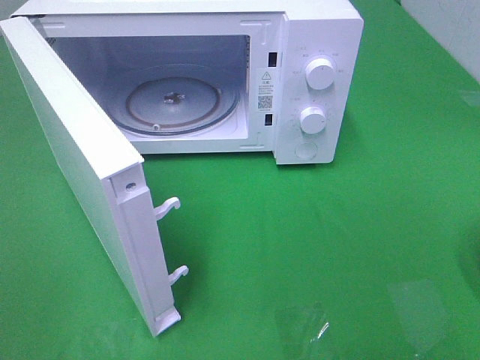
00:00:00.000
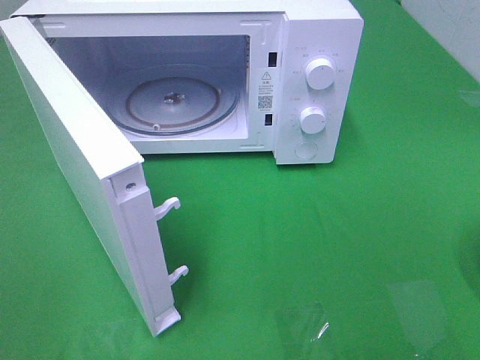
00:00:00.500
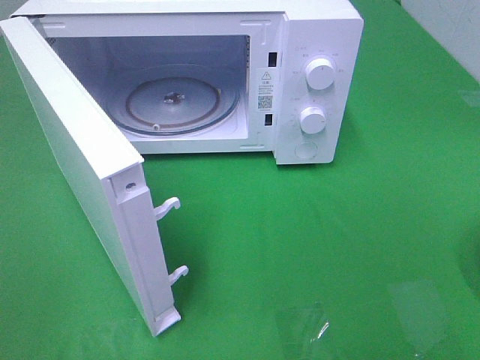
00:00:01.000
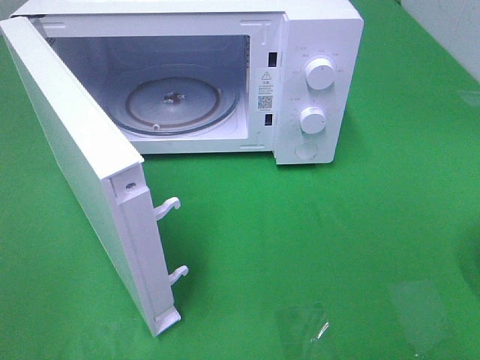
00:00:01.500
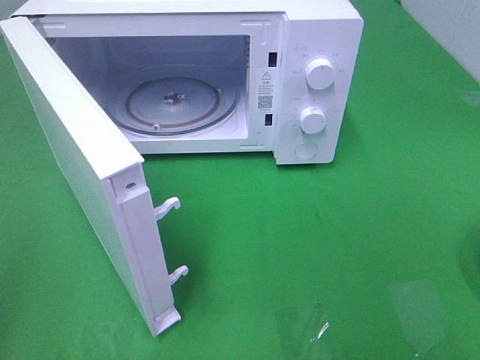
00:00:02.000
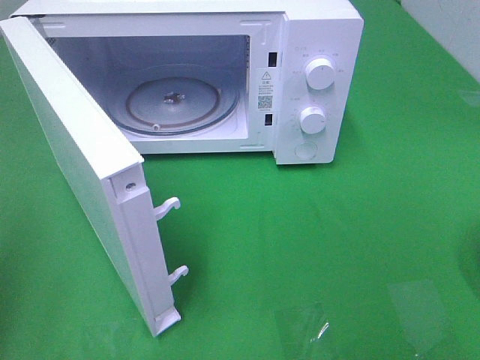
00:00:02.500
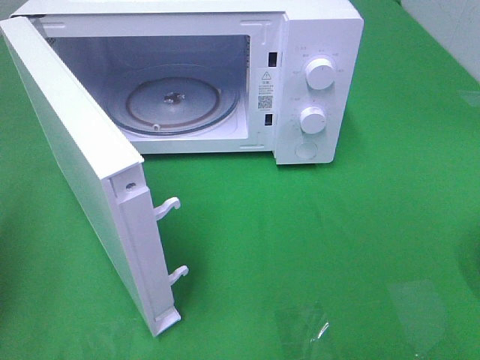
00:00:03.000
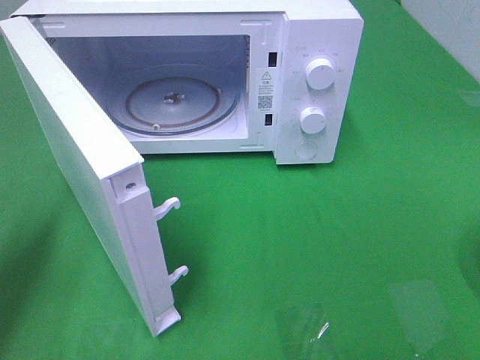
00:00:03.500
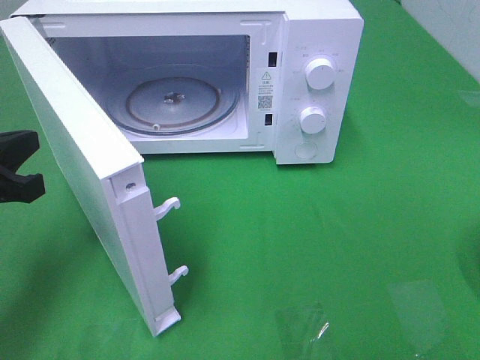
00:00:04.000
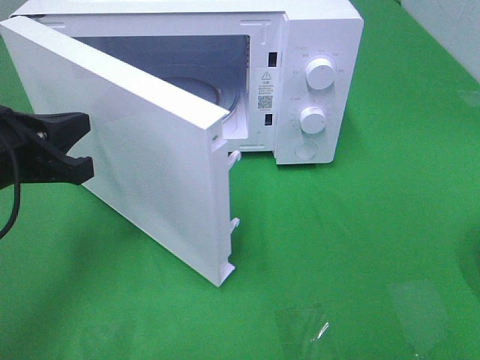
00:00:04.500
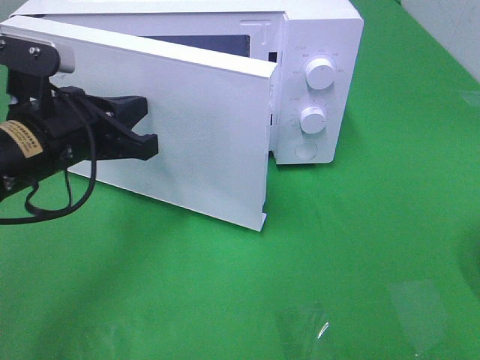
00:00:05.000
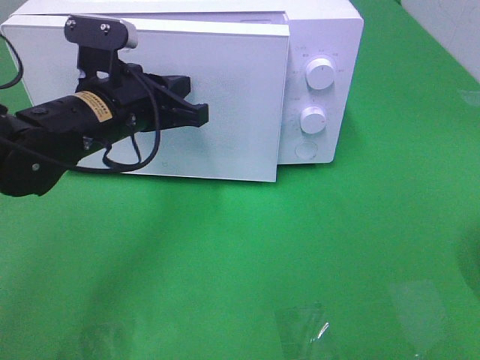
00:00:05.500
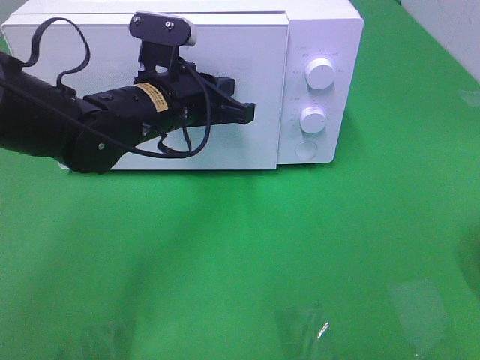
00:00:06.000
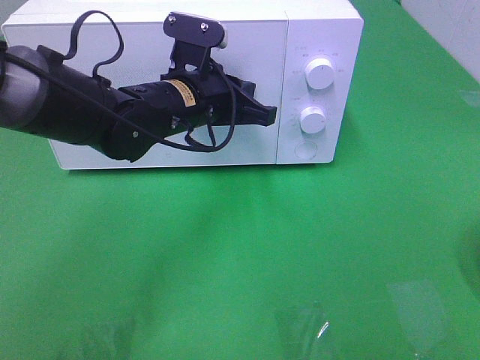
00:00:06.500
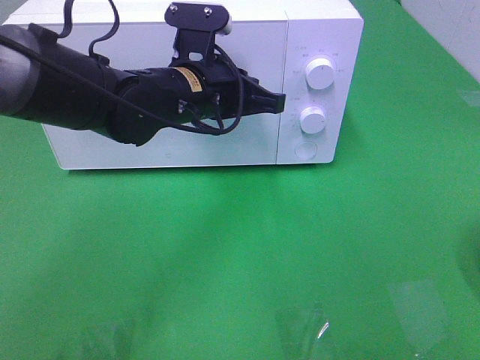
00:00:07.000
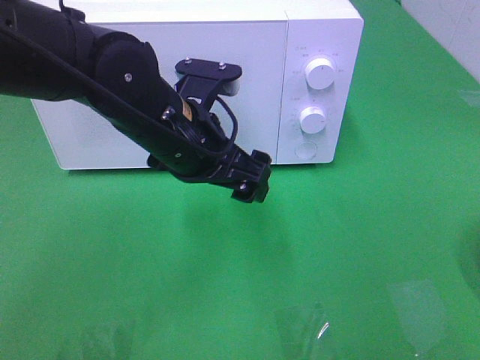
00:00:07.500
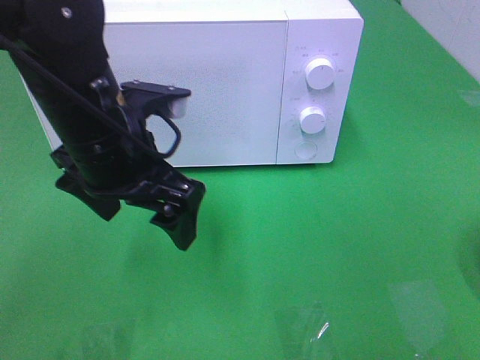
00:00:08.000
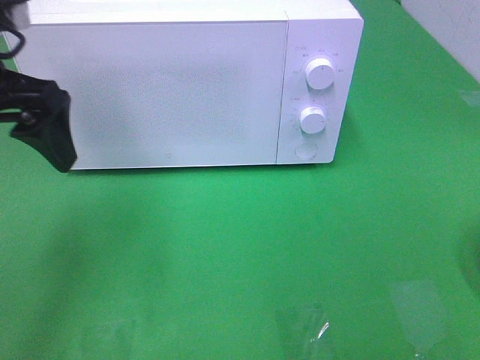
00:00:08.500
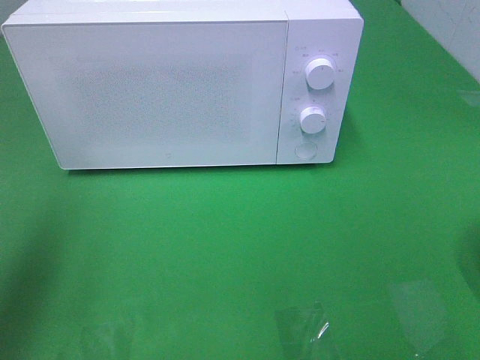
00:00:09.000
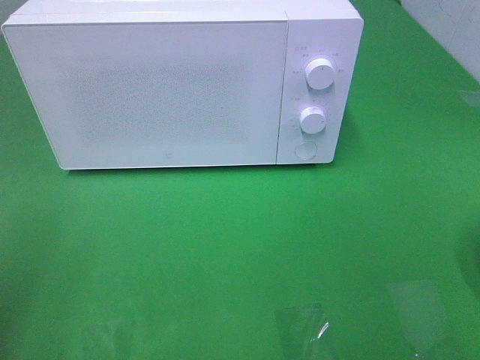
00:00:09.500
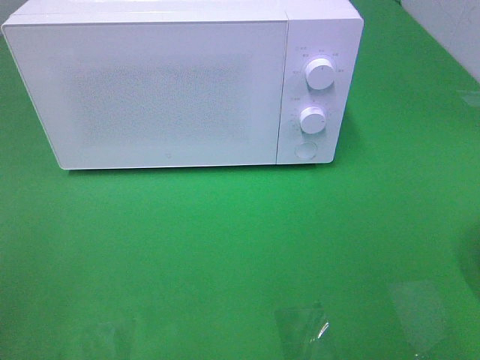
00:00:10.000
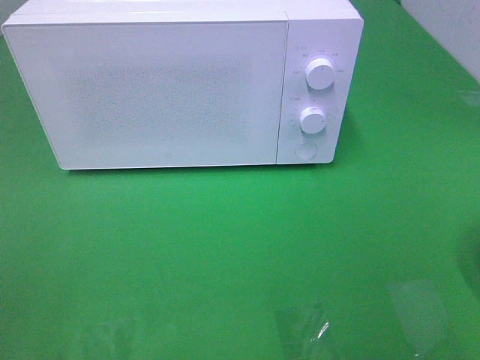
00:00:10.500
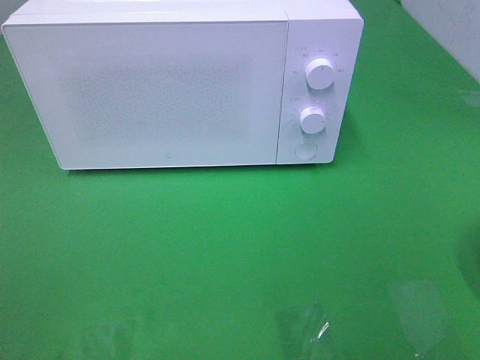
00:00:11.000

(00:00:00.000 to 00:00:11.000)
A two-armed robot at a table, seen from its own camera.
Task of the whole recording: Heat the burger.
Step, 00:00:00.000 - 00:00:06.500: Left hand: close the microwave door.
00:00:02.000 - 00:00:03.500: The left gripper heads forward and downward, covering about 20 cm.
00:00:03.500 - 00:00:05.500: The left gripper travels to the right and forward by roughly 20 cm.
00:00:05.500 - 00:00:07.500: The left gripper heads to the right, covering approximately 5 cm, and opens up.
00:00:07.500 - 00:00:09.000: The left gripper shifts approximately 25 cm to the left and upward.
00:00:09.000 - 00:00:11.000: The left gripper travels backward by approximately 20 cm.

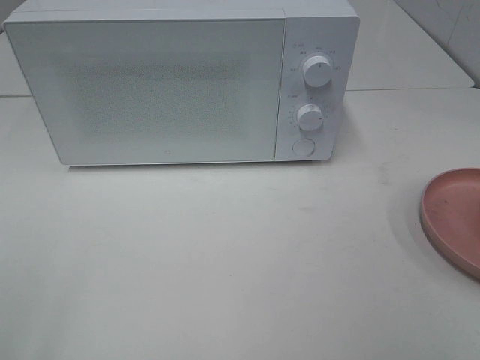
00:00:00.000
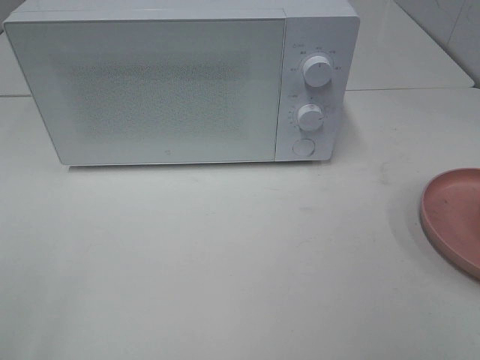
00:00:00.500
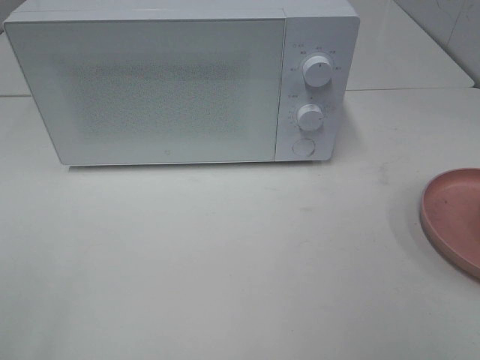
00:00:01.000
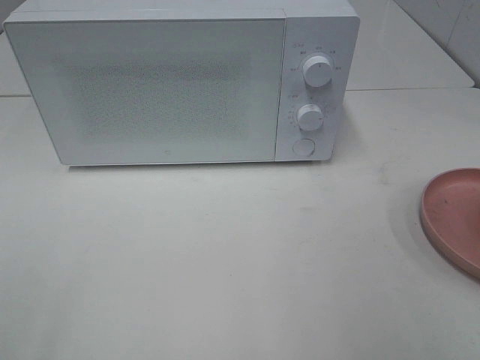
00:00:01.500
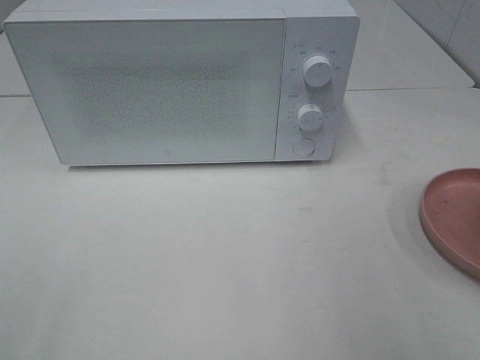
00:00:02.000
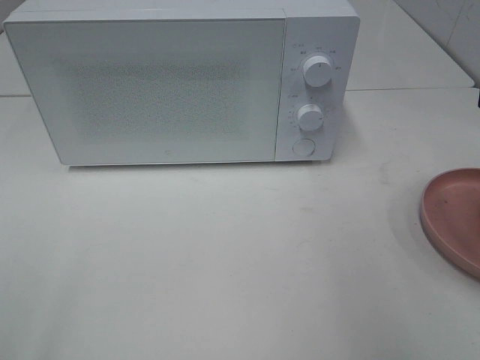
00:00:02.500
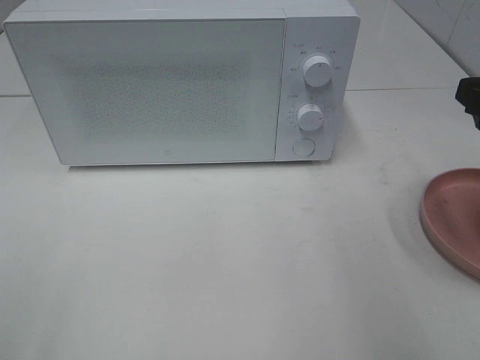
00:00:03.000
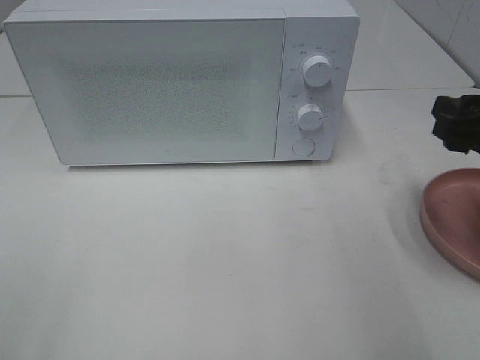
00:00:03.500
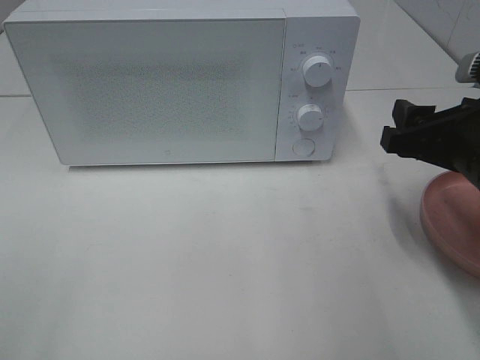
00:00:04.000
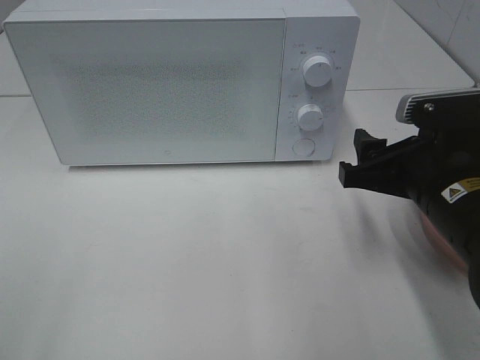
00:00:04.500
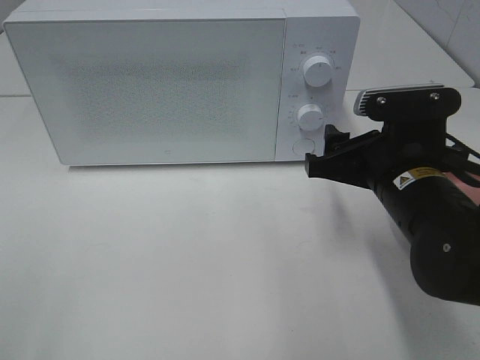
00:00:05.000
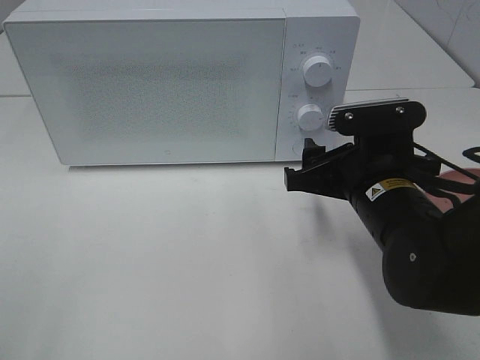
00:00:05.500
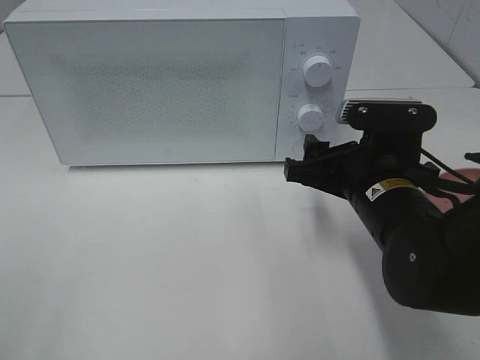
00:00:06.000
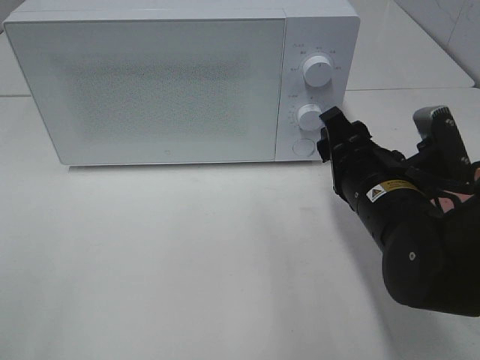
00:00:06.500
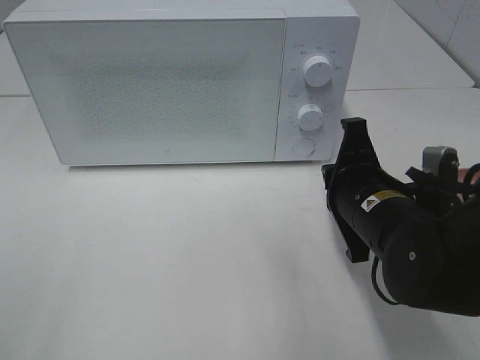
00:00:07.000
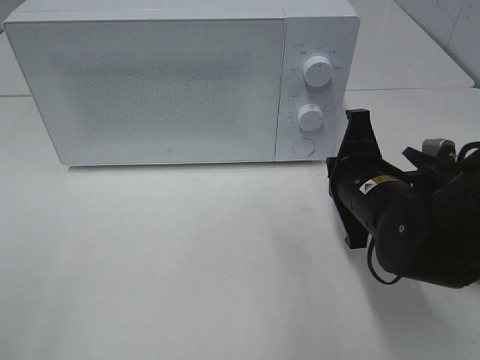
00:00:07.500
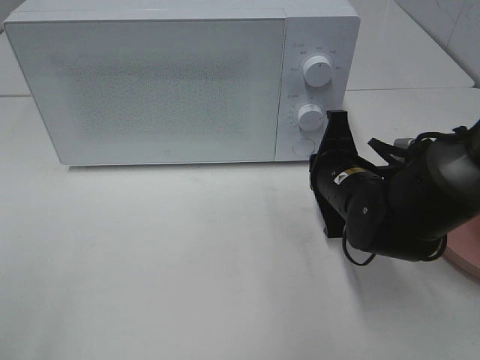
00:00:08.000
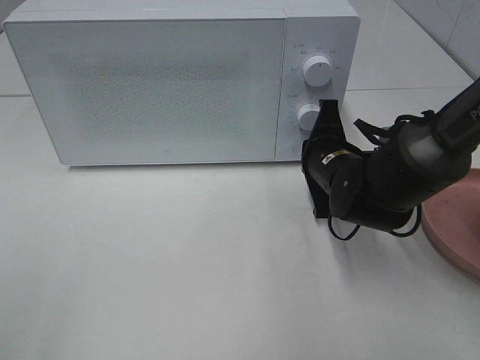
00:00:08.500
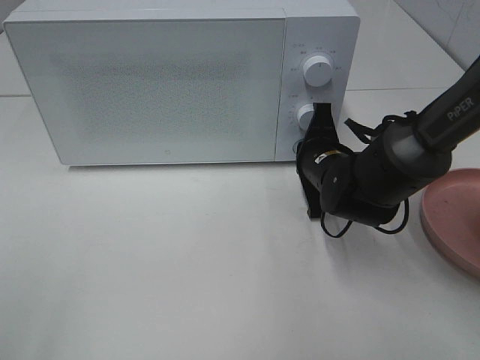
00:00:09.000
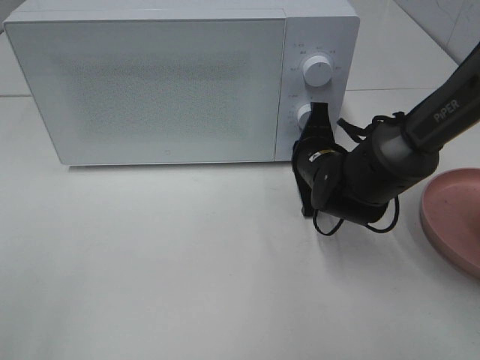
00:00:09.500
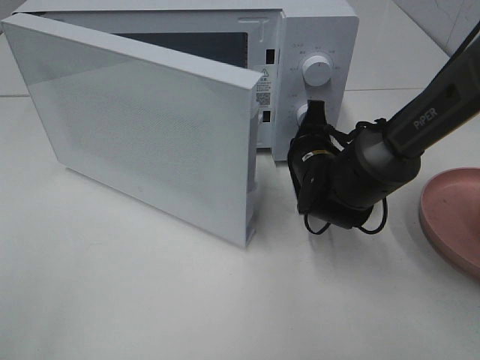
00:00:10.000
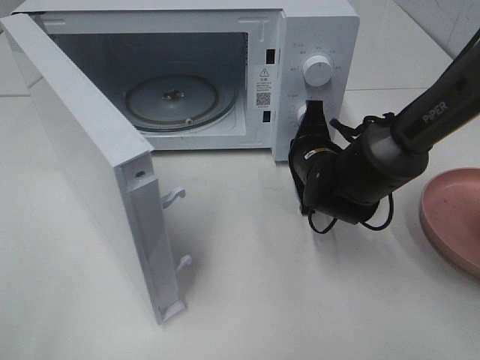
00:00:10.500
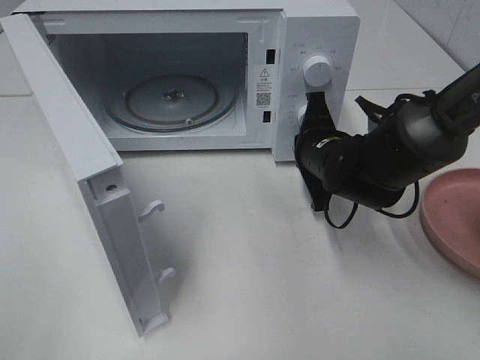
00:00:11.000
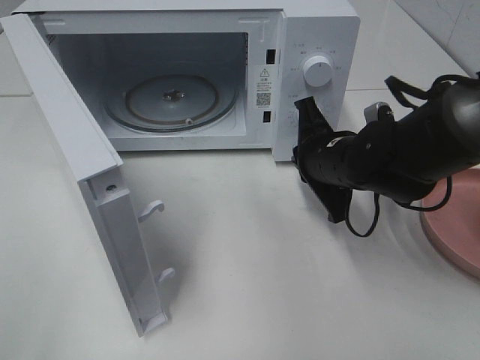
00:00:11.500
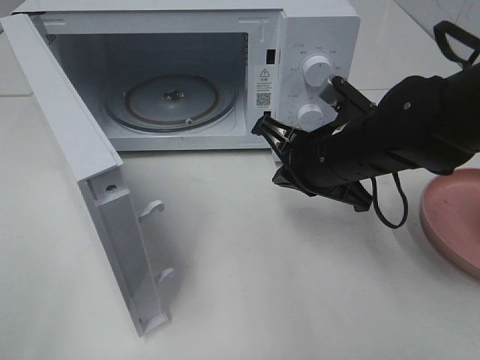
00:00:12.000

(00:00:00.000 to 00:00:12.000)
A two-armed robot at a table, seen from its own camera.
Task of the whole recording: Heat the burger.
Step, 00:00:00.000 - 00:00:11.000: Right hand: press the switch.
00:00:02.000 - 00:00:04.000: The right gripper goes some 15 cm downward, forward and to the left.
00:00:04.000 - 00:00:06.000: The right gripper goes roughly 10 cm to the left and downward.
00:00:06.000 - 00:00:08.000: The right gripper shifts approximately 5 cm forward, and closes up.
00:00:08.000 - 00:00:10.000: The right gripper goes about 5 cm forward.
00:00:10.000 - 00:00:12.000: The right gripper moves upward and backward, approximately 10 cm.

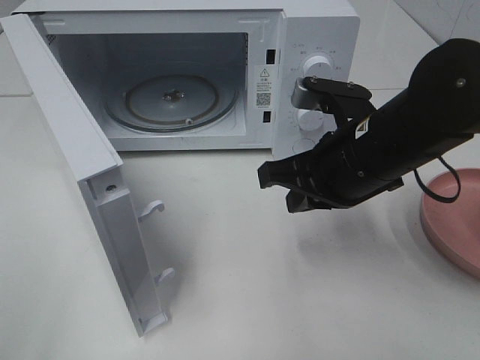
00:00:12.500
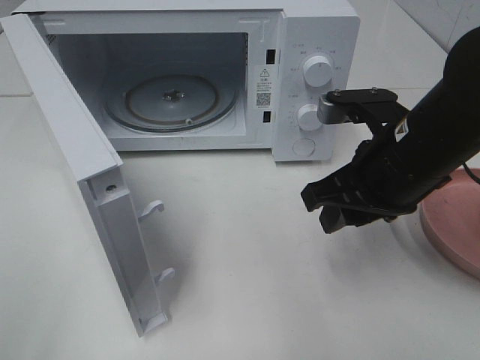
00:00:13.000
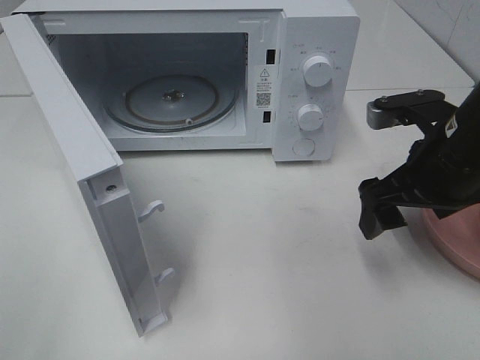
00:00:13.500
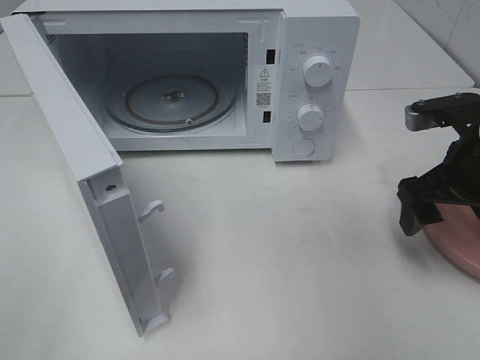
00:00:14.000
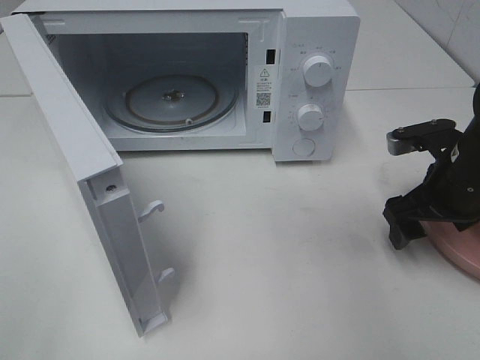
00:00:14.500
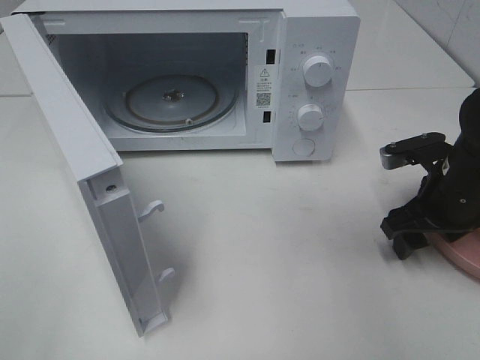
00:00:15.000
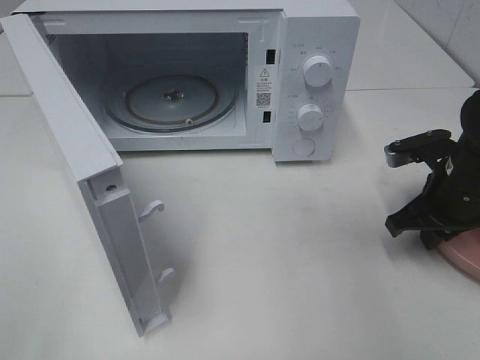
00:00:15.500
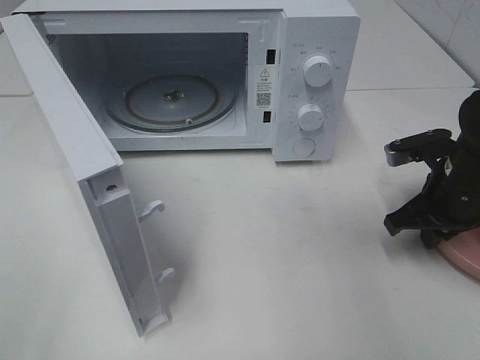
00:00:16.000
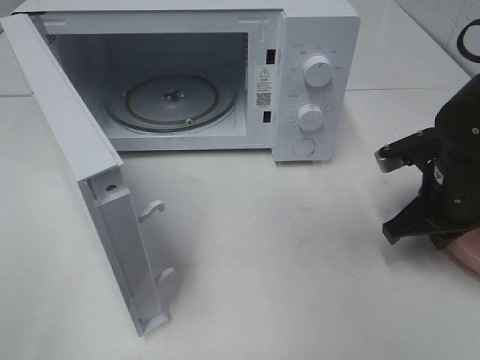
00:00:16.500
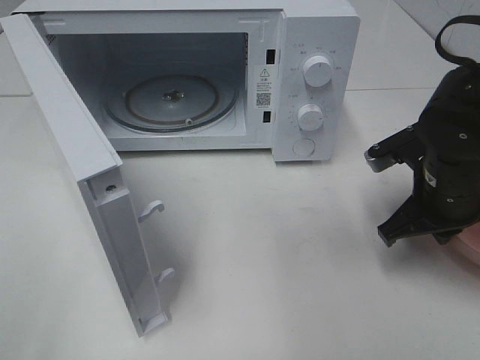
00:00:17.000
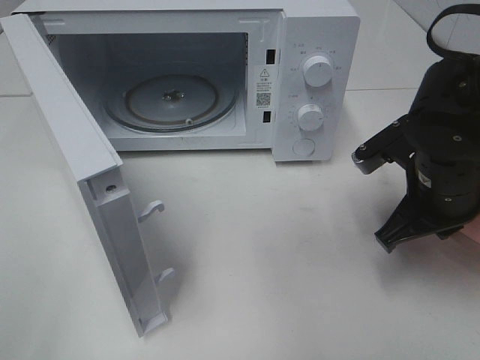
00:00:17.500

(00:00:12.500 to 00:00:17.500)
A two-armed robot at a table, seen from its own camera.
Task of the whole recording: Heat the burger.
Step, 00:00:12.500 - 00:00:16.500: Right hand: grab the plate with the hamburger.
00:00:12.500 - 00:00:15.000: The right gripper heads to the right and downward, covering some 15 cm, and opens up.
00:00:15.000 - 00:00:17.500: The right gripper goes approximately 5 cm to the left, and closes.
